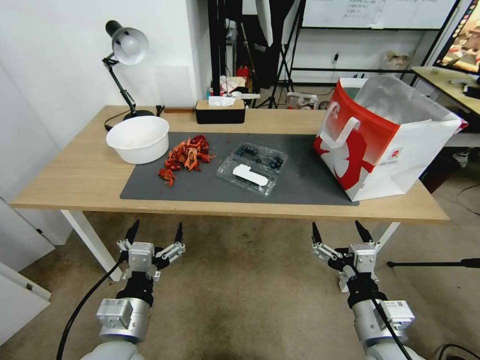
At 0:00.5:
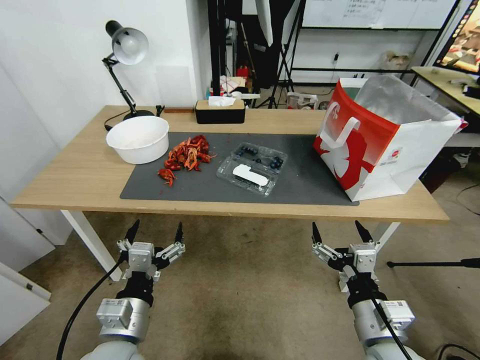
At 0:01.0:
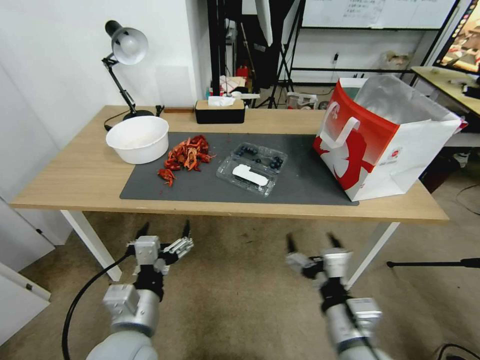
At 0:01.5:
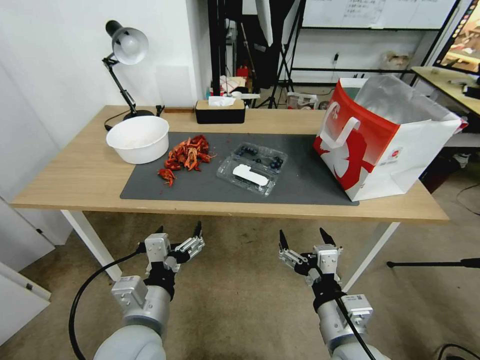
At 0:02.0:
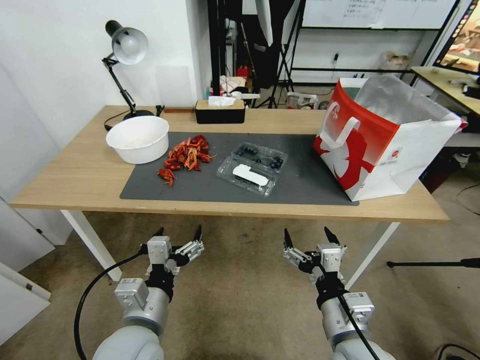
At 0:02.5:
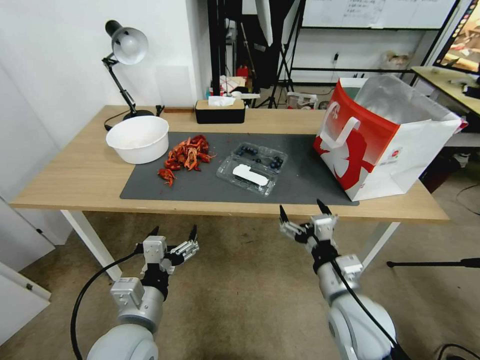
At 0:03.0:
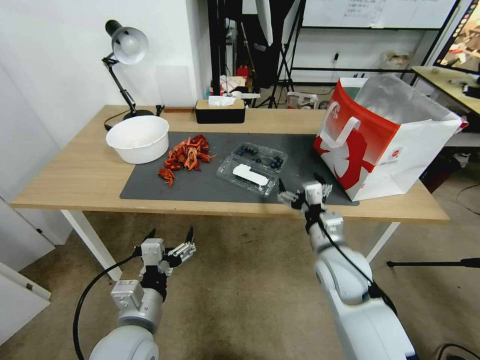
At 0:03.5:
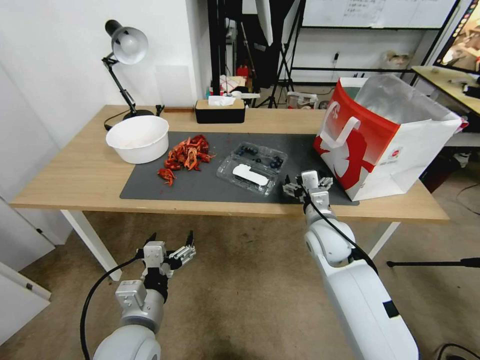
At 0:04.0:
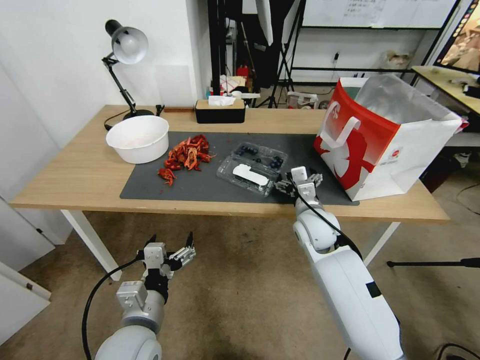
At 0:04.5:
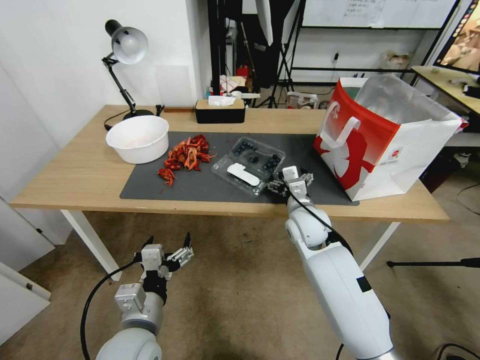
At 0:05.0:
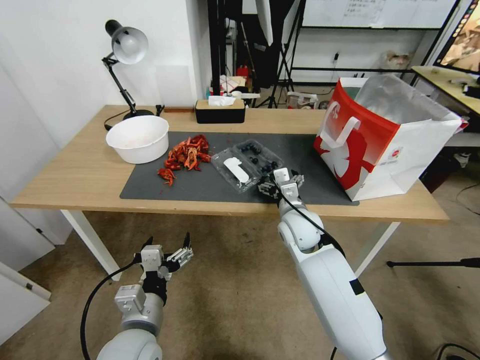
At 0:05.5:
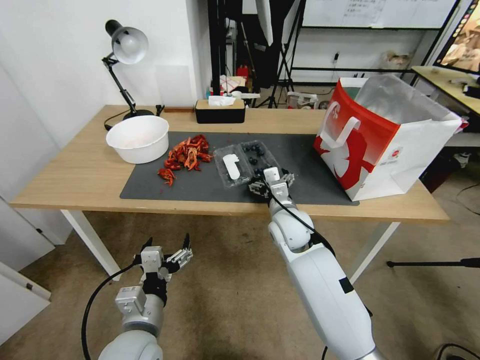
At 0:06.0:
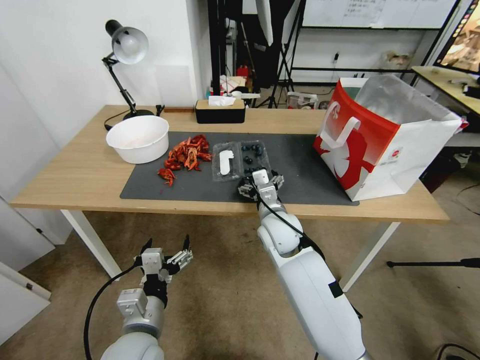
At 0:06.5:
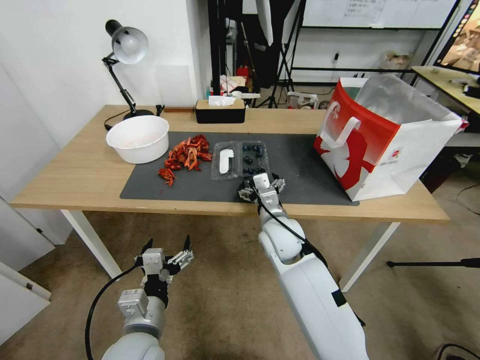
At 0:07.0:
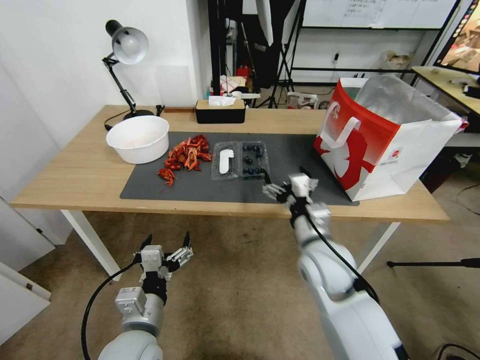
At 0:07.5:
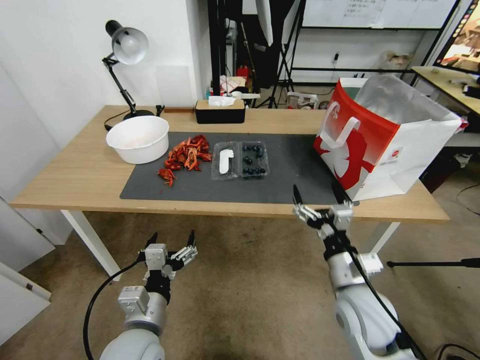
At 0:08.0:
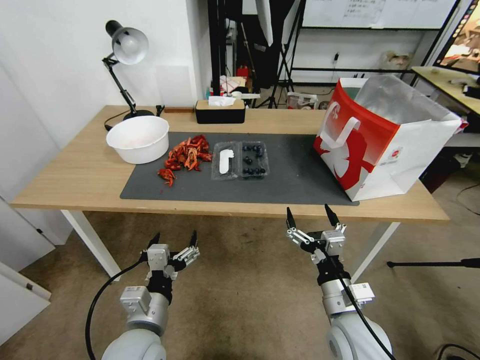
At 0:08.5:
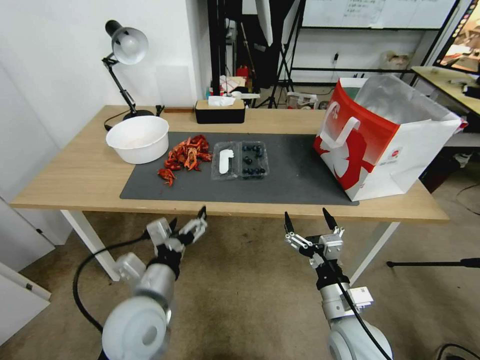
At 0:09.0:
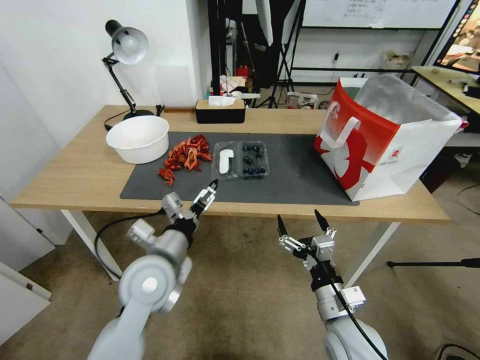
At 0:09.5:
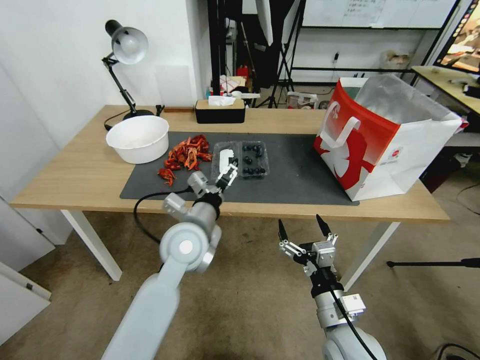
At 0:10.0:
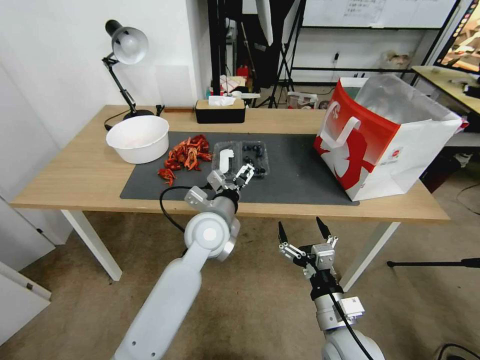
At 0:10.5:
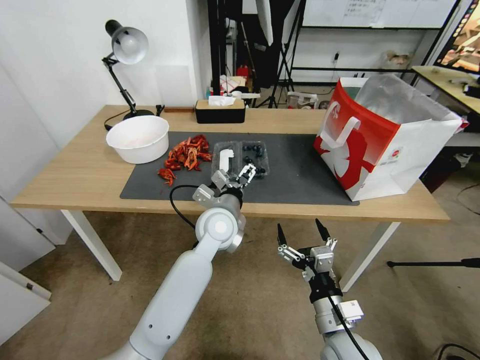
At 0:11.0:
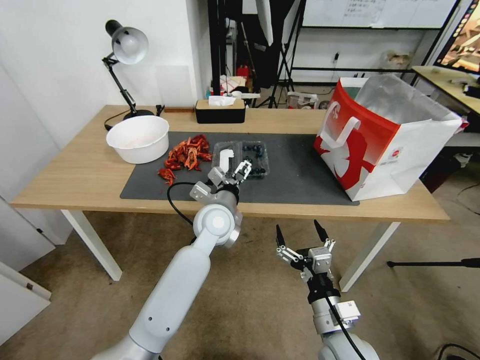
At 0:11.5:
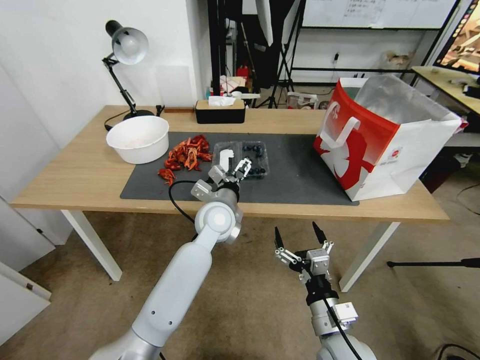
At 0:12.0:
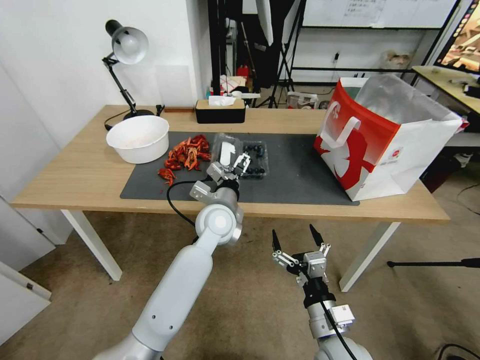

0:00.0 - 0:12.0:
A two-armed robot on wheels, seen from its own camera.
Task of the whole recording: Close the takeout container lid, then place the container into the takeout bag.
0:02.0 - 0:04.0: The right gripper is displaced forward by some 25 cm.
0:04.0 - 0:06.0: The right gripper goes approximately 10 cm to the left.
0:06.0 - 0:08.0: The right gripper heads backward and to the right, covering some 25 cm.
0:08.0 - 0:10.0: The left gripper shifts about 25 cm forward and to the right.
0:10.0 - 0:12.0: The left gripper ends up approximately 5 cm from where it was.

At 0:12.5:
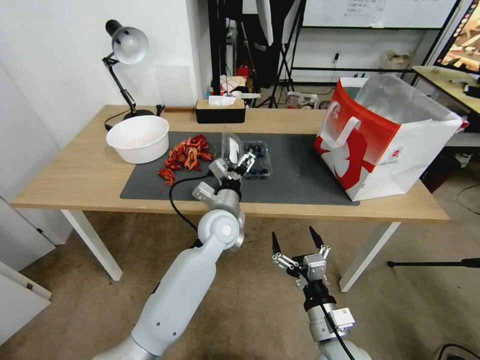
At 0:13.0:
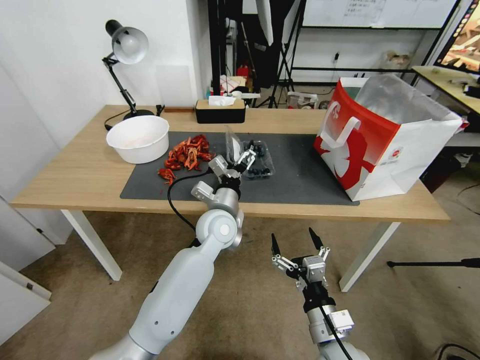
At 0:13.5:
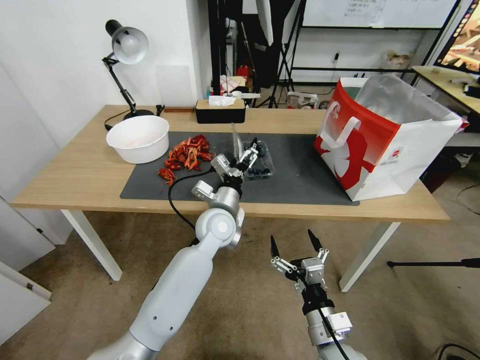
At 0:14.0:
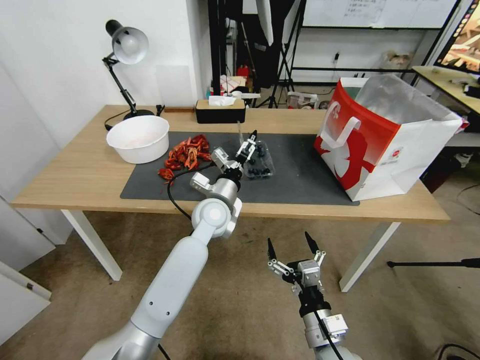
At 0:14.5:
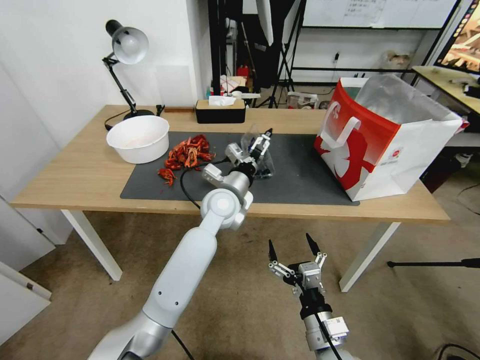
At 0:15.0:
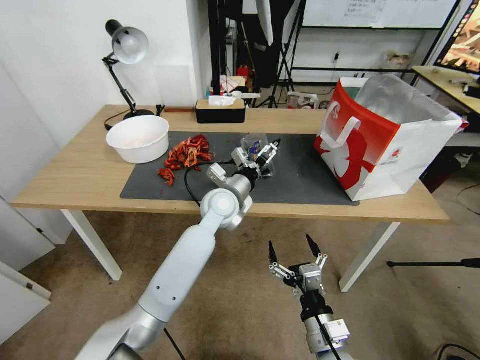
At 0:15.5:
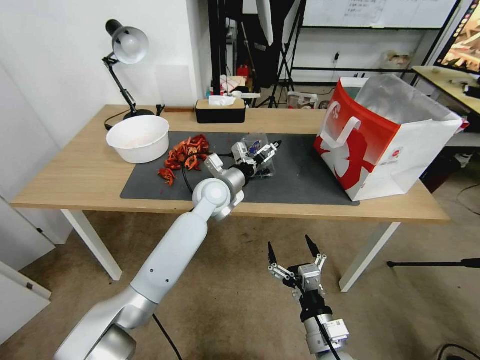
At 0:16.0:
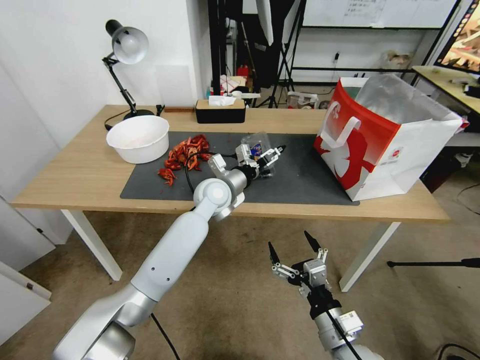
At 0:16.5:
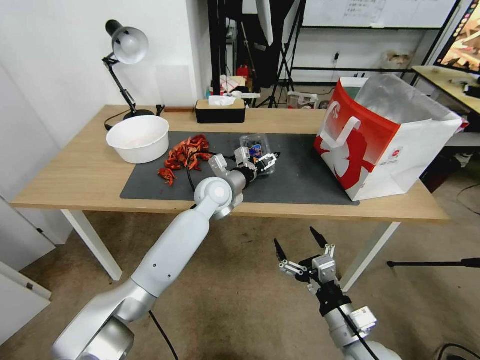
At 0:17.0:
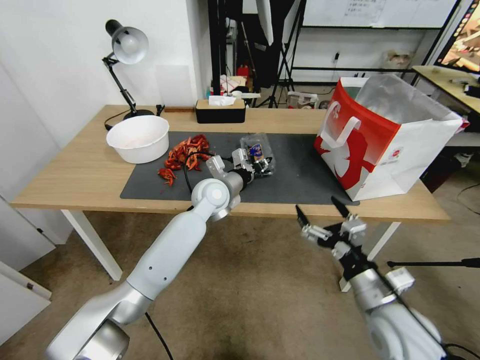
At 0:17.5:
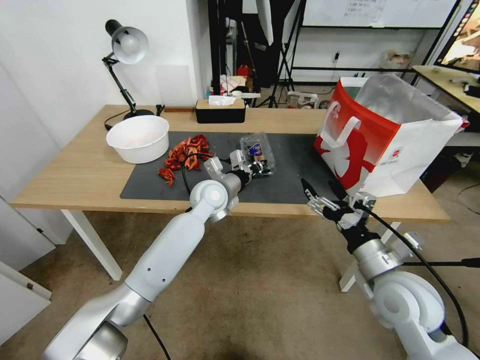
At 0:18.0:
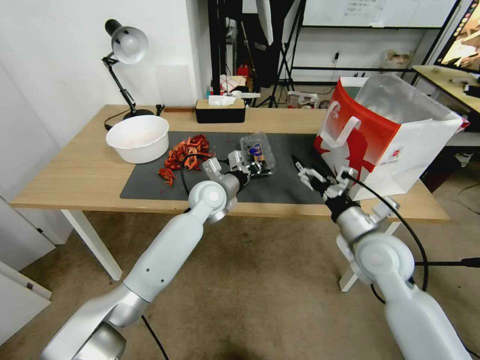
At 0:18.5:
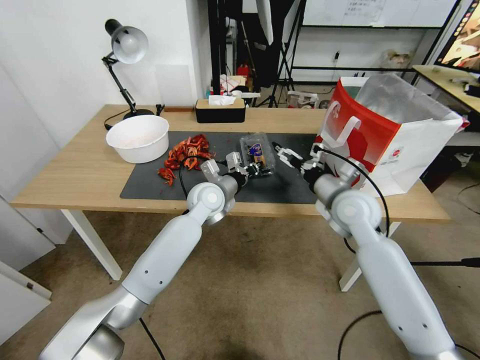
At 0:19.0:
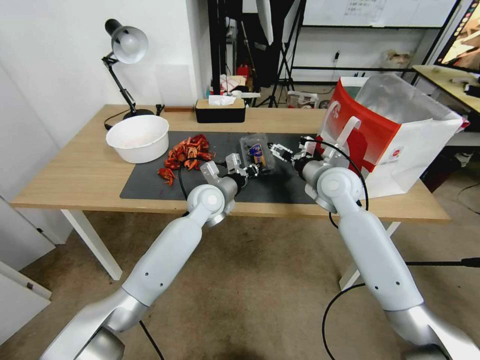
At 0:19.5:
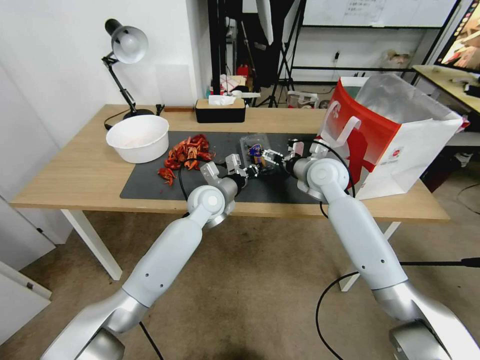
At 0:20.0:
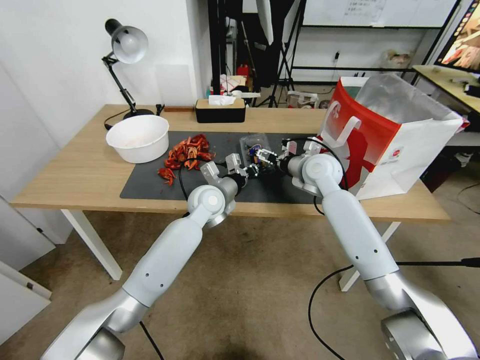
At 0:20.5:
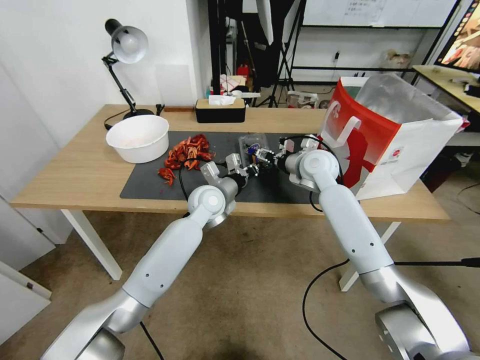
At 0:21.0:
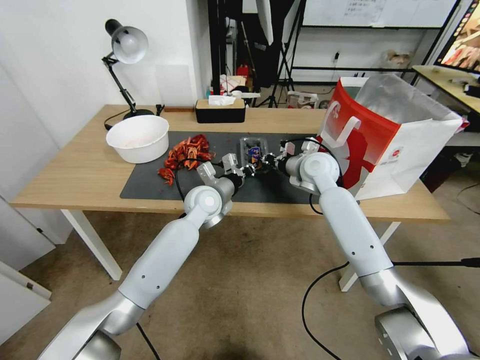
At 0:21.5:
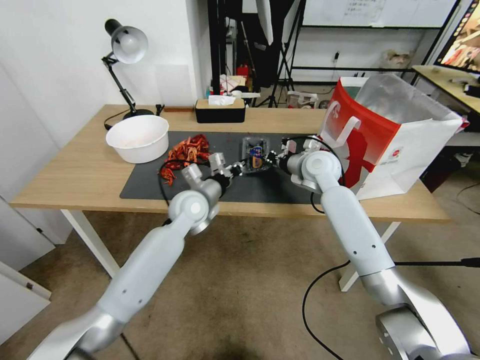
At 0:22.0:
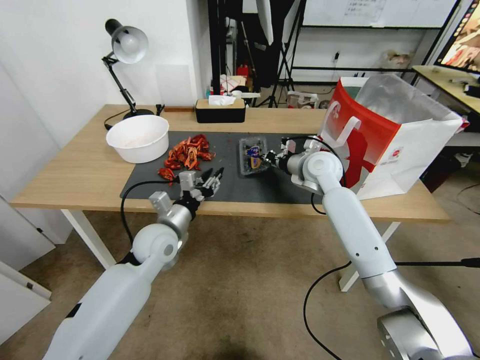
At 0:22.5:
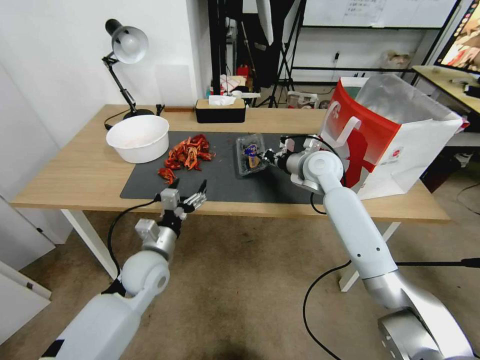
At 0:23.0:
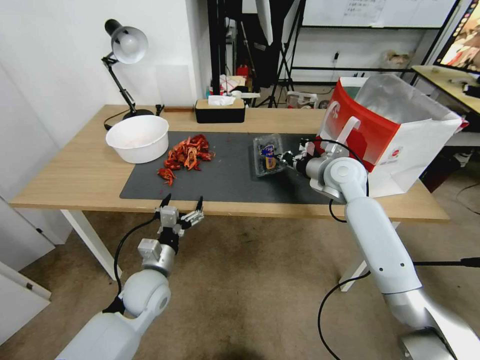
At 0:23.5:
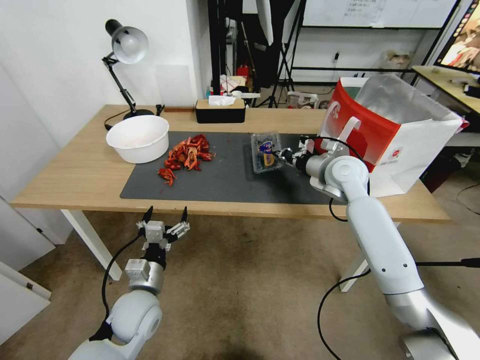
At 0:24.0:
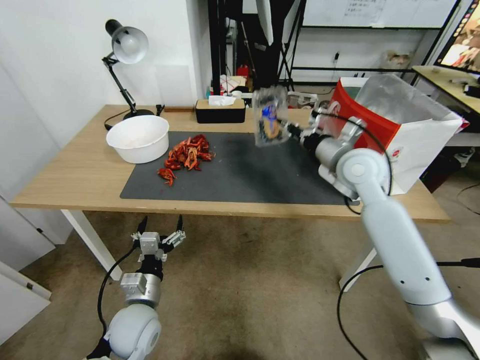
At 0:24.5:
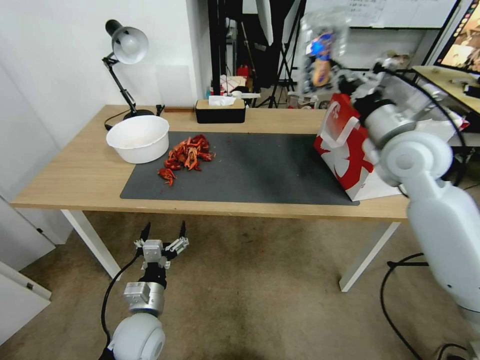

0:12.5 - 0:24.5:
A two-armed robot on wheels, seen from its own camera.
Task of the whole recording: Close the takeout container lid, then place the container into the takeout bag.
0:14.5 - 0:16.5: The left gripper shifts by roughly 5 cm. The right gripper heads to the right, covering about 5 cm.
0:16.5 - 0:18.5: The right gripper heads forward and upward, covering approximately 30 cm. Meanwhile the left gripper closes up.
0:18.5 - 0:20.5: The right gripper goes about 10 cm forward.
0:20.5 - 0:22.5: The left gripper heads backward and to the left, covering roughly 20 cm, and opens its fingers, while the right gripper closes its fingers.
0:22.5 - 0:24.5: The left gripper moves backward and downward, roughly 15 cm, while the right gripper is displaced upward, backward and to the right by some 20 cm.

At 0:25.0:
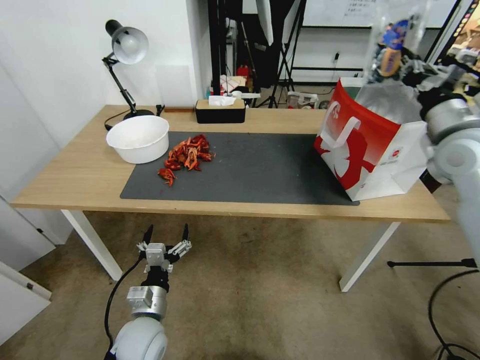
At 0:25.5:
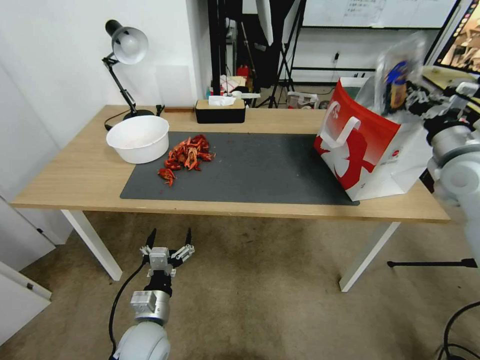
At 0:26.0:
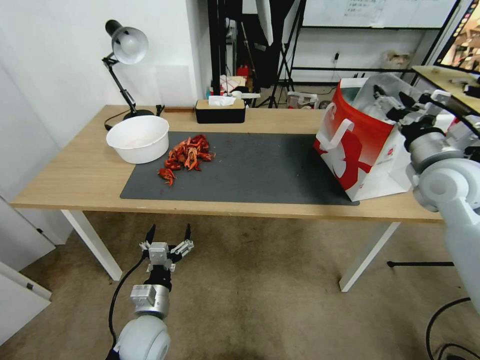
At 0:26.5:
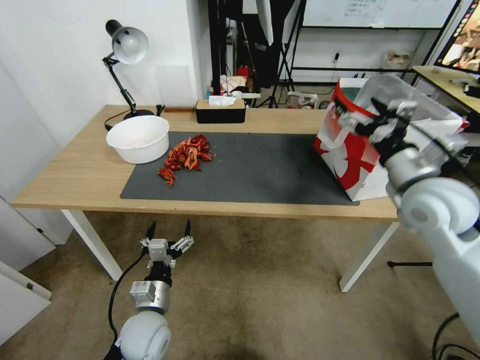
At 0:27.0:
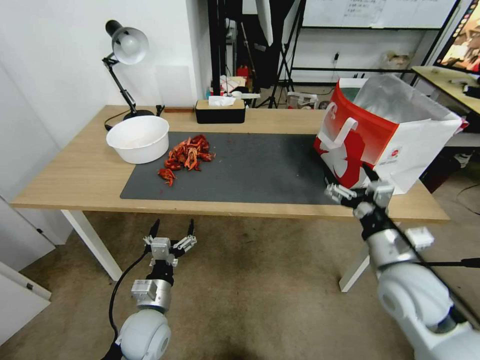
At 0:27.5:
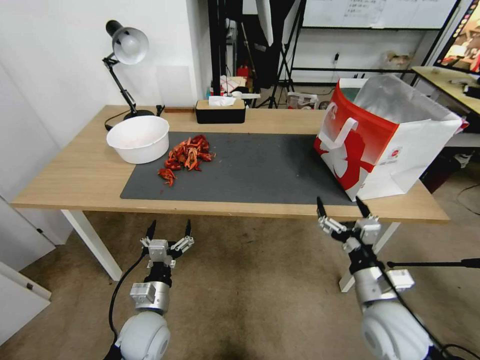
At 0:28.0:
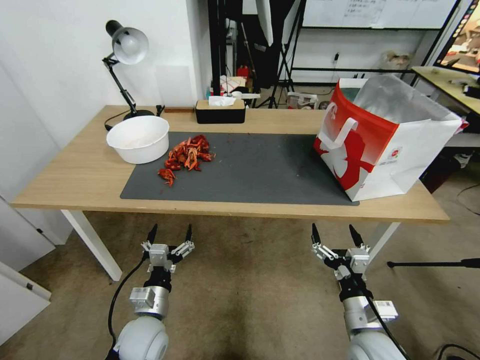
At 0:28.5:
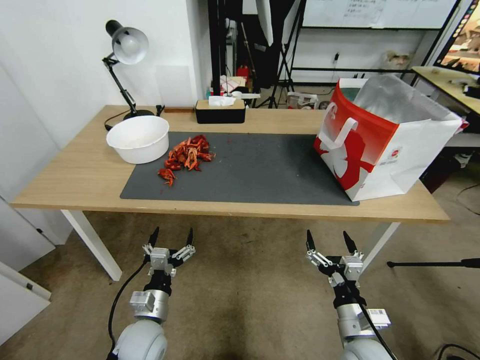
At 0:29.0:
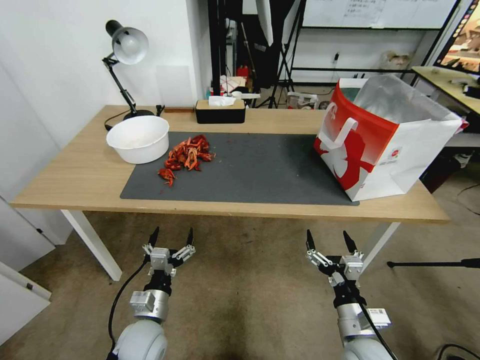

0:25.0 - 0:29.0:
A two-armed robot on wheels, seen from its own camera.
Task of the whole recording: Close the takeout container lid, then place the container into the takeout bag.
0:25.0 - 0:27.0: The right gripper heads downward, backward and to the left, covering approximately 25 cm, and opens its fingers.
0:27.0 - 0:29.0: The right gripper shifts about 20 cm downward and backward.
